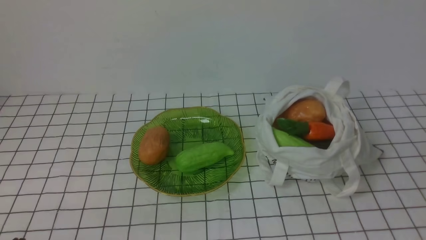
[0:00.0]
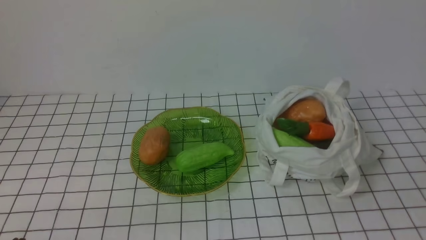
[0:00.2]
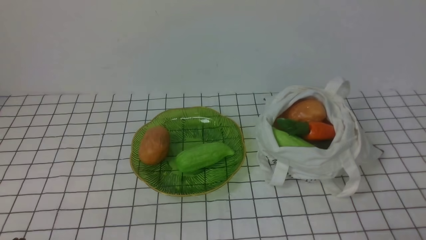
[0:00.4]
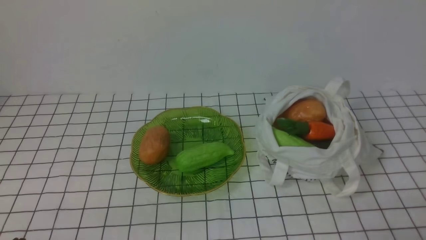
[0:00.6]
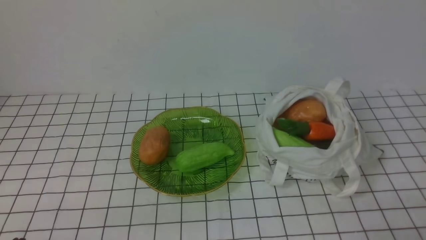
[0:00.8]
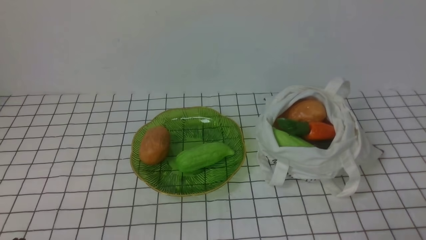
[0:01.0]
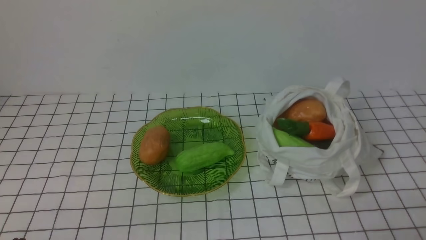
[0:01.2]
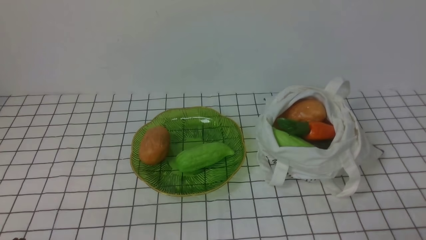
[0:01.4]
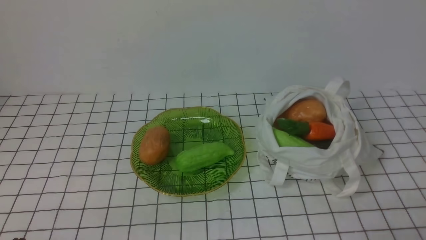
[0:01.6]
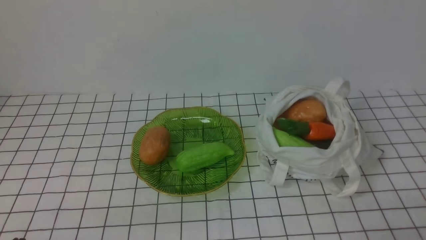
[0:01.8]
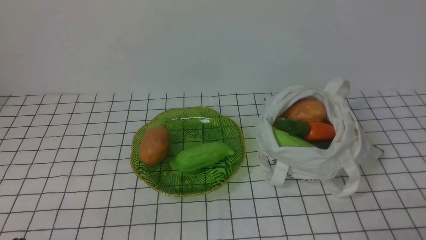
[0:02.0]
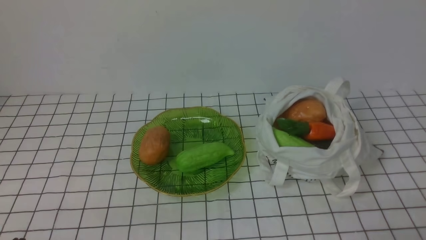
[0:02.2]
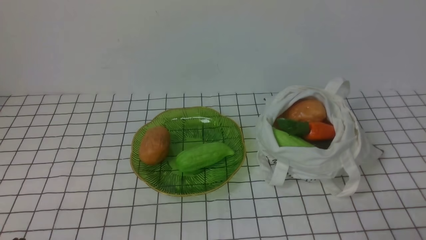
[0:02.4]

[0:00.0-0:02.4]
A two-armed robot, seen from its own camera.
Task of the whole recording: take vegetables from bag on white checkered tablecloth place on plate.
0:01.2 to 0:02.4: The two grippers keep their place.
